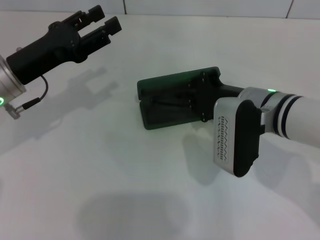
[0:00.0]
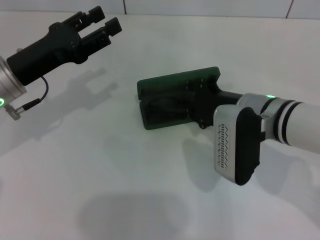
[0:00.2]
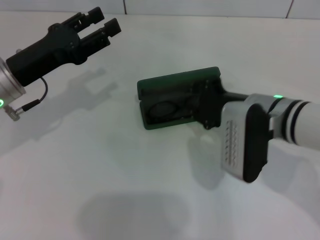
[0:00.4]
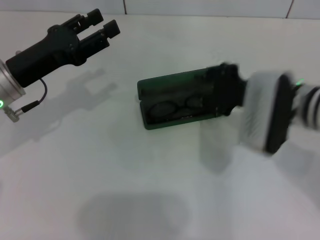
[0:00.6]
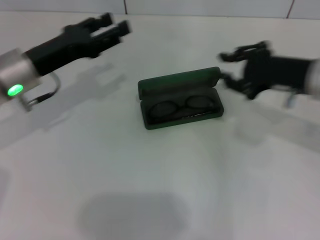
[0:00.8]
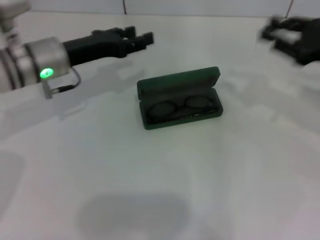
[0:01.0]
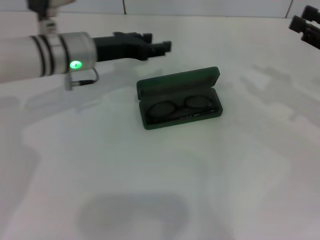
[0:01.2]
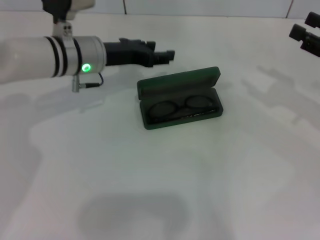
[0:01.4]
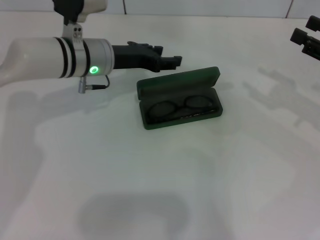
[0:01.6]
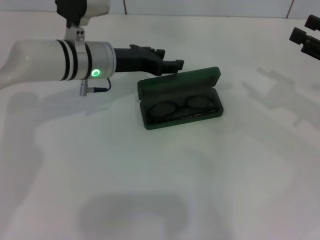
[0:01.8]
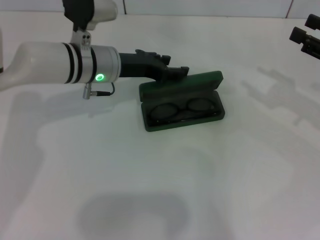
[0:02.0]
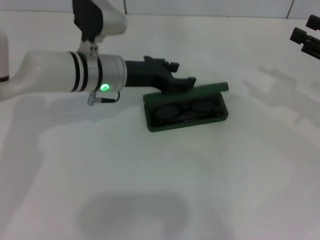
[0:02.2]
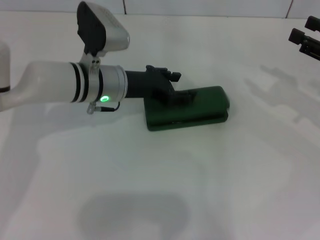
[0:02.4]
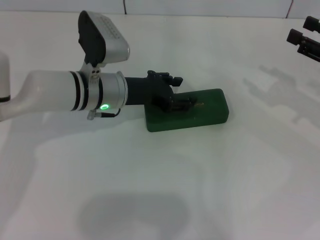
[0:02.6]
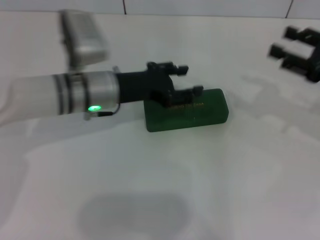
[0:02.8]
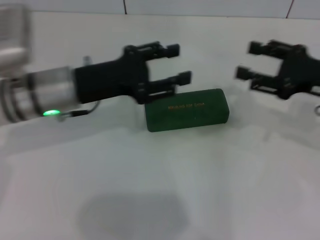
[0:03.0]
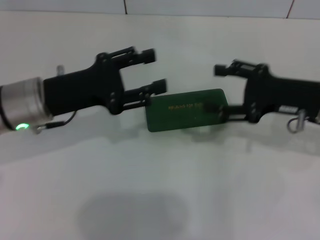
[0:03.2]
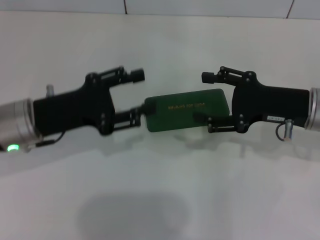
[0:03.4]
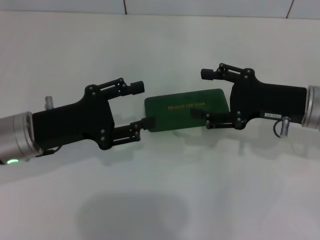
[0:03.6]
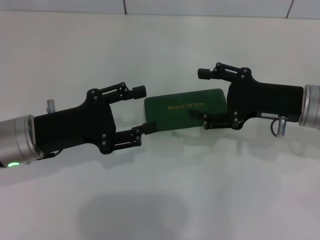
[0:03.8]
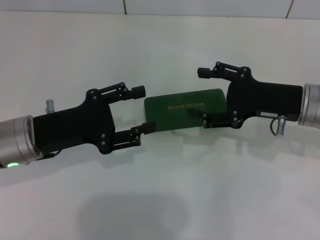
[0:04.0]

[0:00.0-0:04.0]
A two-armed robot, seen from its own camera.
Step, 0:00.4 to 0:02.4: Close the glasses case with your left hand.
0:00.0 to 0:01.4: The right gripper moves to the right, about 20 cm, and opens up. Meanwhile the left gripper is displaced to the right and forward by about 15 cm.
0:01.4 to 0:02.6: The left gripper moves roughly 5 cm.
0:02.6 to 0:04.0: The left gripper is displaced backward and to the left by roughly 15 cm. The right gripper is displaced to the left by about 10 cm.

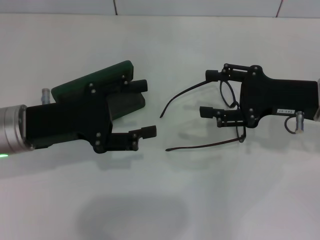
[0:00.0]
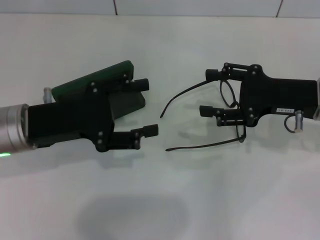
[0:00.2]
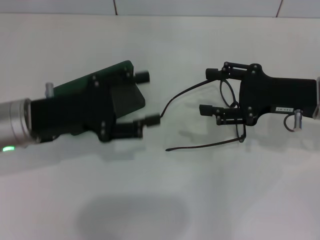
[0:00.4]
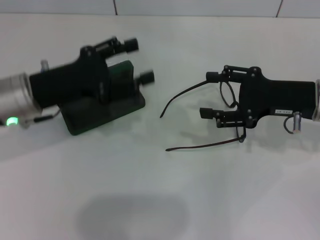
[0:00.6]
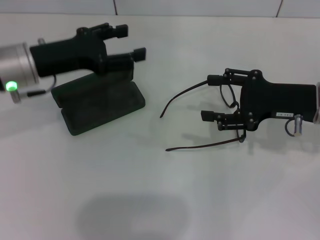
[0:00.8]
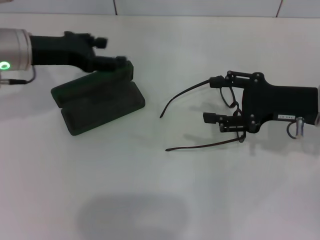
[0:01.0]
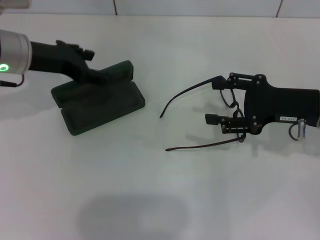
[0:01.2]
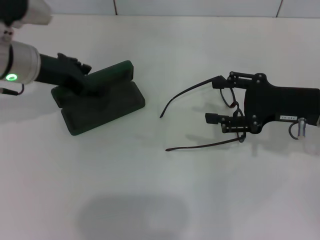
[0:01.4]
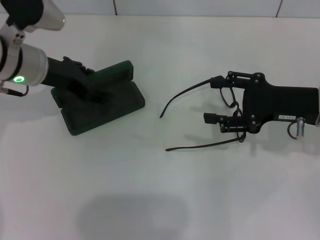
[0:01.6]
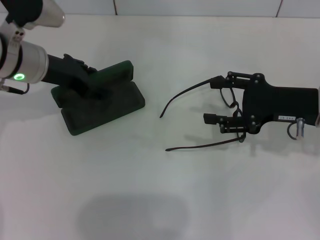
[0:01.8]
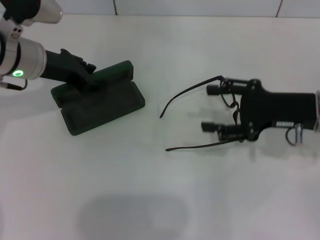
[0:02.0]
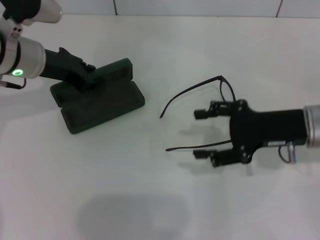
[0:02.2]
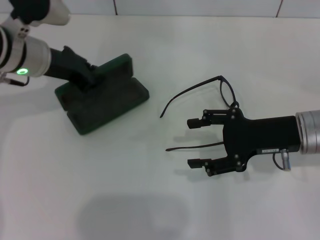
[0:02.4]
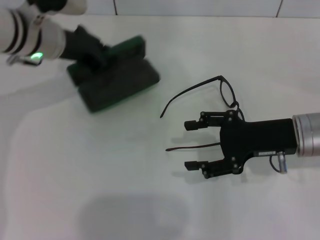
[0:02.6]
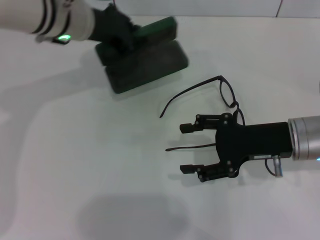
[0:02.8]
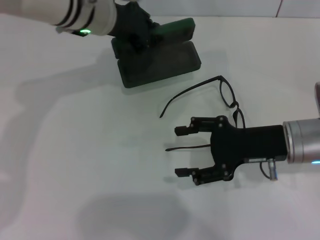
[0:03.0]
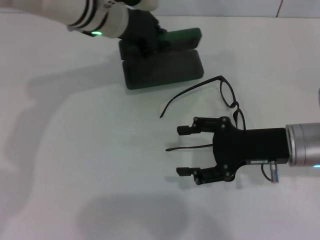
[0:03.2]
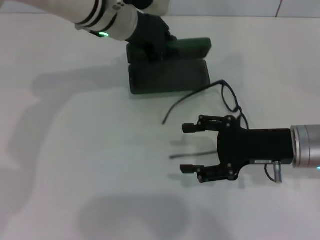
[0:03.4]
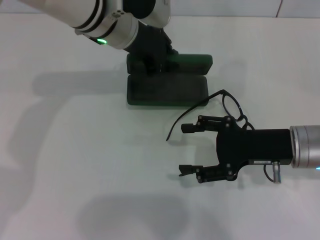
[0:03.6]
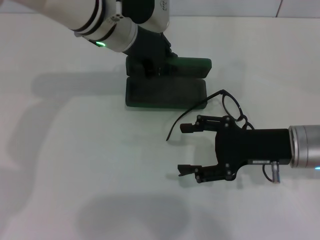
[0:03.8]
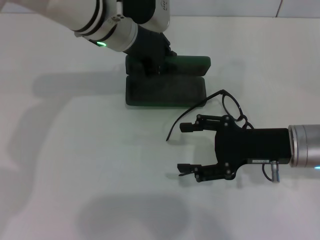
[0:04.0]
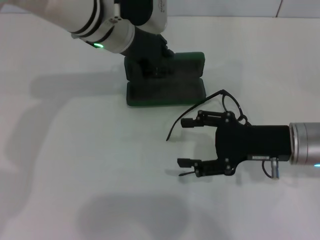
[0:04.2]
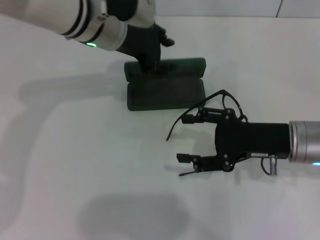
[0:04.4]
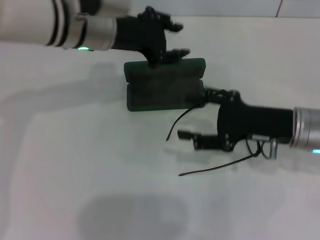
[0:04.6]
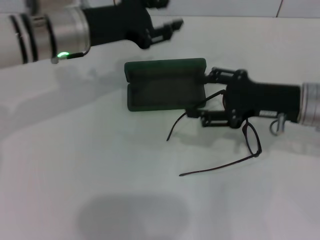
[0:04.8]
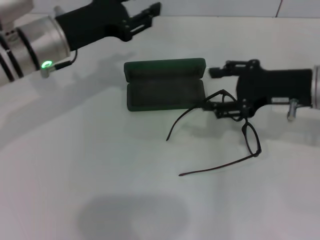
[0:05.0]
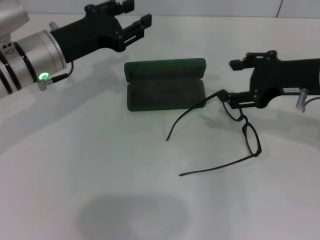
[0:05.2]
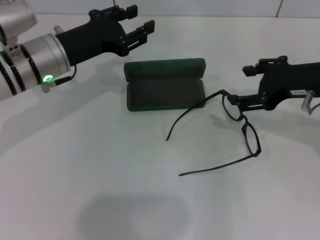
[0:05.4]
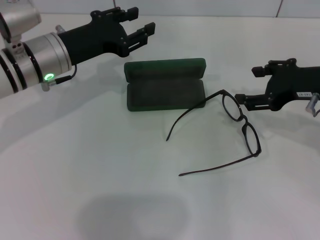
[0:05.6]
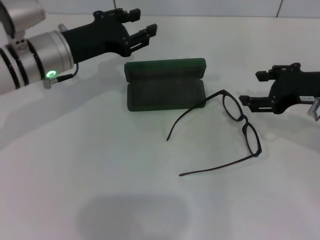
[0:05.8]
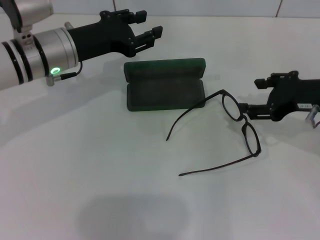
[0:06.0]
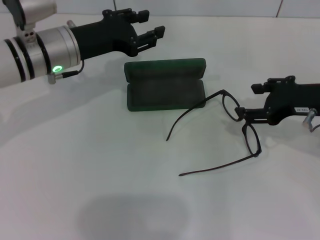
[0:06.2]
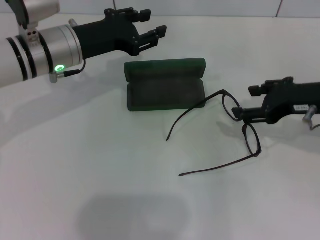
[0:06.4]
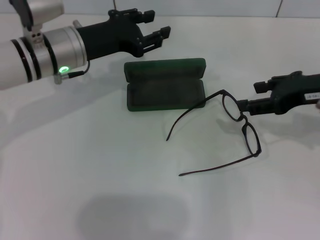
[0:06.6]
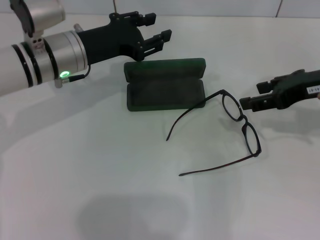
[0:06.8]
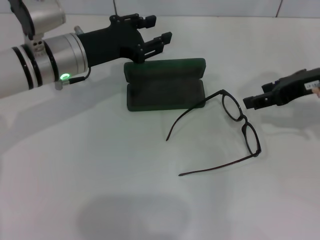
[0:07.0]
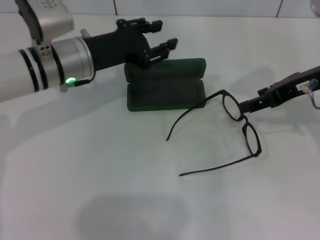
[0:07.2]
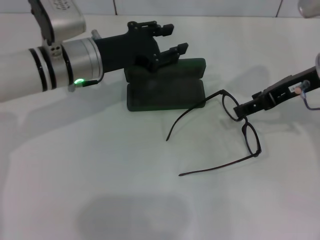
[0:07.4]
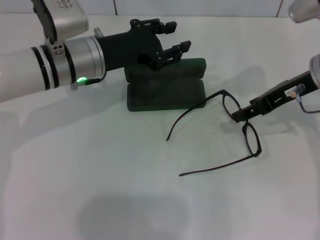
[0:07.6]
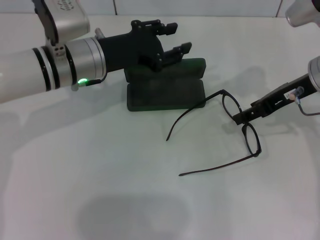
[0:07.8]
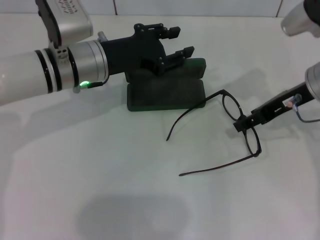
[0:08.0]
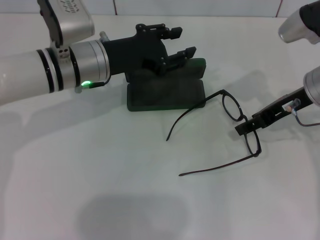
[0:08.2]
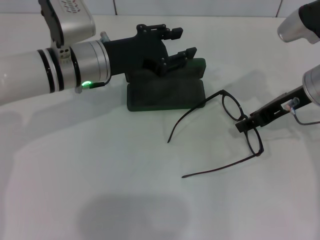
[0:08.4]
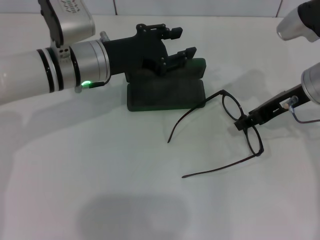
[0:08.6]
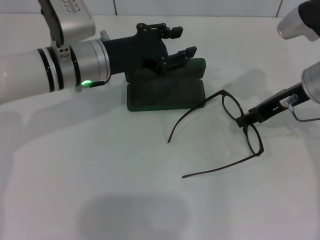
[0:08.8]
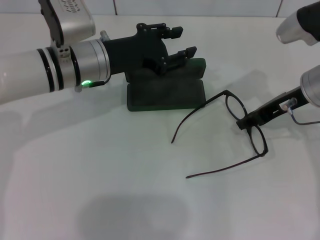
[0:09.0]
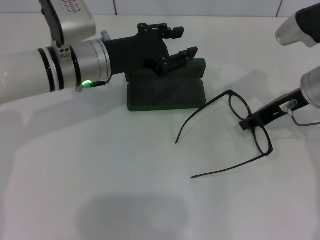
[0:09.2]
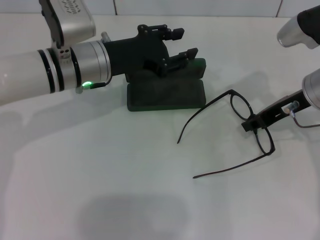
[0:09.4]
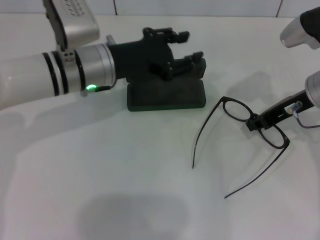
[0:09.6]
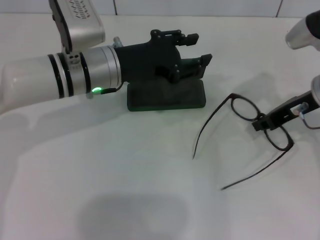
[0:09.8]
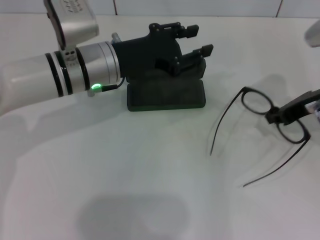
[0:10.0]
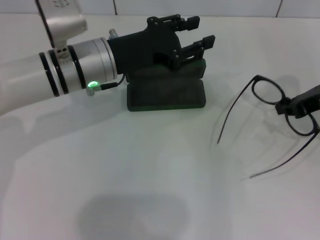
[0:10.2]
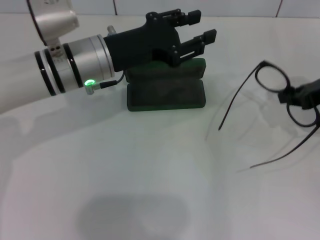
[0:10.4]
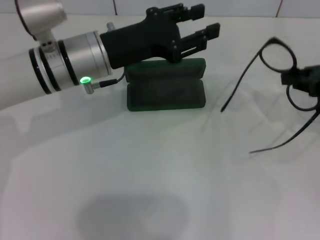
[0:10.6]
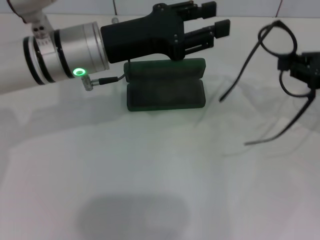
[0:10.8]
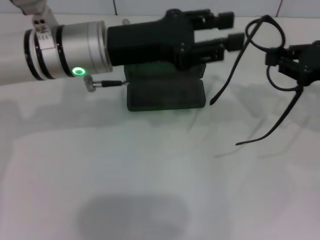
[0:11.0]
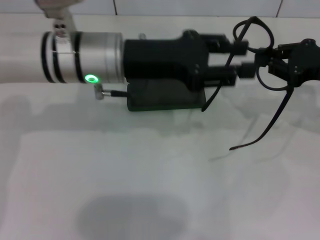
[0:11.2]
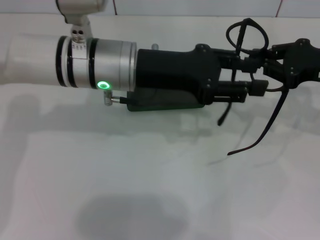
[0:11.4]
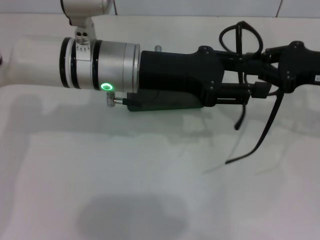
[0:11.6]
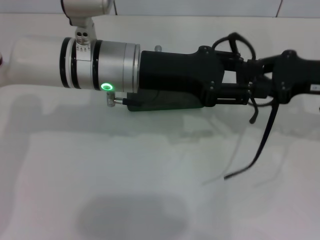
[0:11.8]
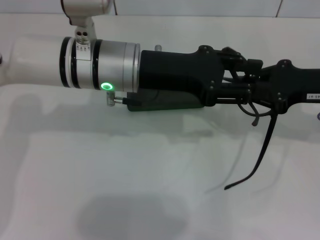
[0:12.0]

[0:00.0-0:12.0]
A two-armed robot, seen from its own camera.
Step, 0:00.0 to 0:01.6: Grab the glasses case with your left hand.
Step, 0:01.8 to 0:04.2: Place the glasses case in the center of the table with your left hand.
Step, 0:04.4 to 0:09.4: Grab the eyeglass frame with your right hand.
0:00.0 to 0:01.6: The left gripper is displaced forward by about 10 cm.
0:01.6 to 0:03.0: The right gripper moves about 5 cm. Meanwhile the left gripper heads to the right and forward, covering about 10 cm, and closes.
0:03.0 to 0:04.4: There are only small adjustments of the grippers.
0:04.4 to 0:06.0: The left gripper shifts roughly 10 cm to the left. Meanwhile the right gripper goes roughly 5 cm upward.
0:06.0 to 0:07.6: The right gripper shifts by roughly 5 cm.
0:07.6 to 0:09.0: There are only small adjustments of the grippers.
0:09.0 to 0:10.4: The right gripper moves to the right, about 10 cm, and closes its fingers.

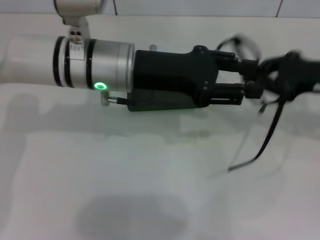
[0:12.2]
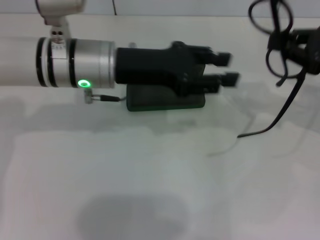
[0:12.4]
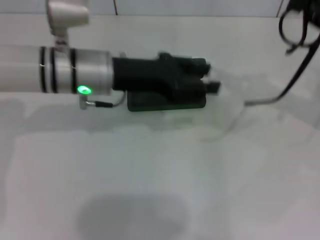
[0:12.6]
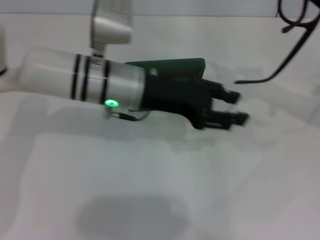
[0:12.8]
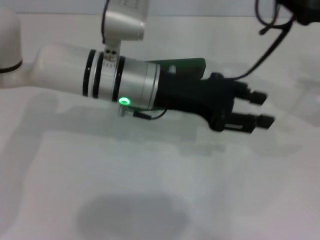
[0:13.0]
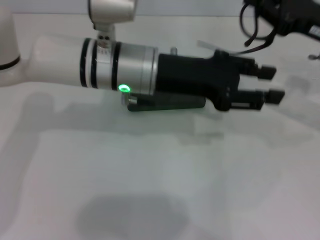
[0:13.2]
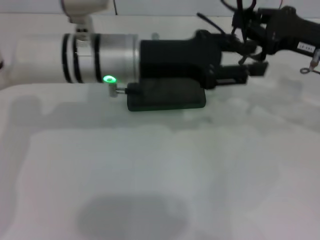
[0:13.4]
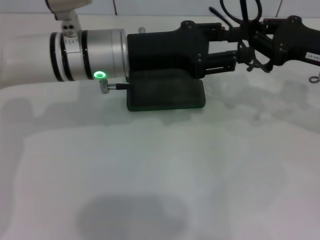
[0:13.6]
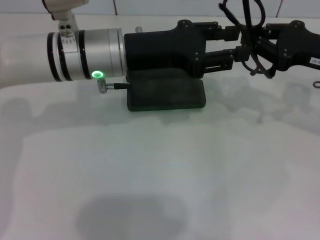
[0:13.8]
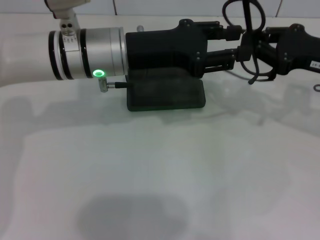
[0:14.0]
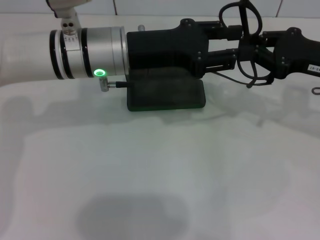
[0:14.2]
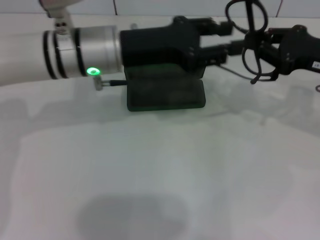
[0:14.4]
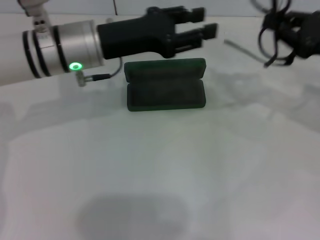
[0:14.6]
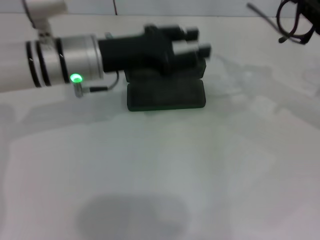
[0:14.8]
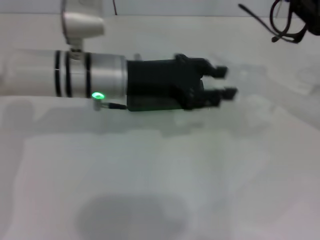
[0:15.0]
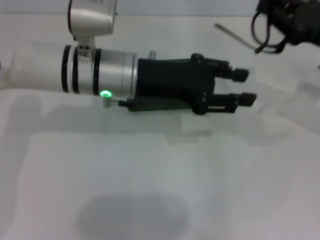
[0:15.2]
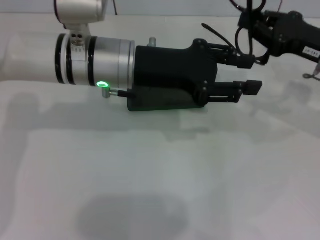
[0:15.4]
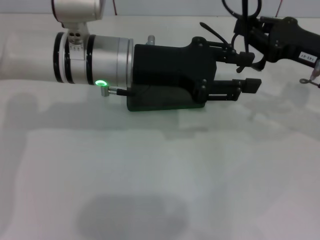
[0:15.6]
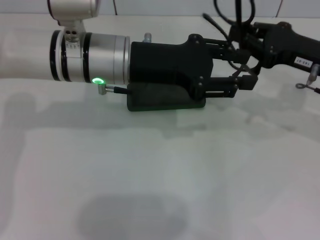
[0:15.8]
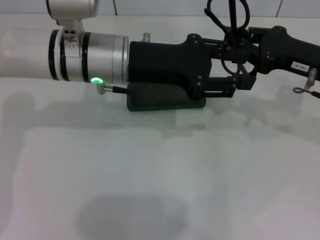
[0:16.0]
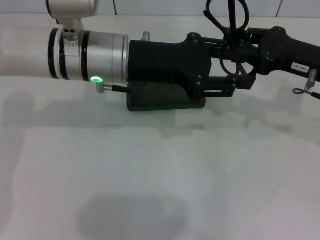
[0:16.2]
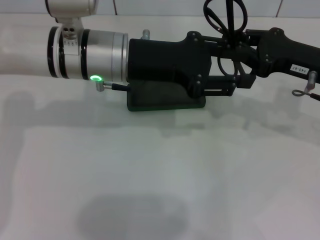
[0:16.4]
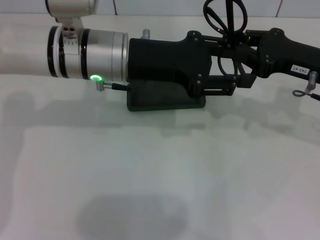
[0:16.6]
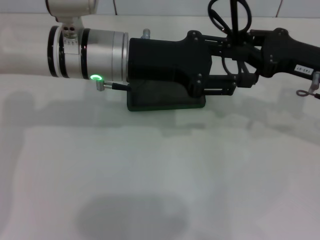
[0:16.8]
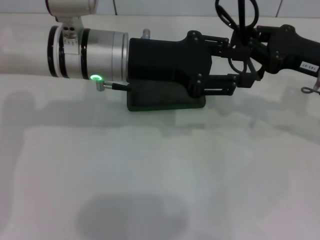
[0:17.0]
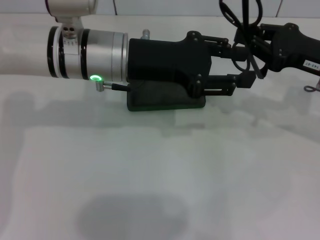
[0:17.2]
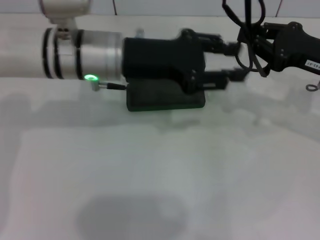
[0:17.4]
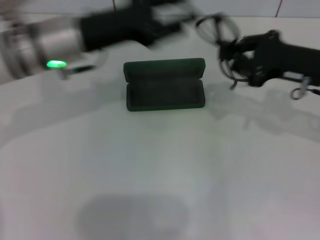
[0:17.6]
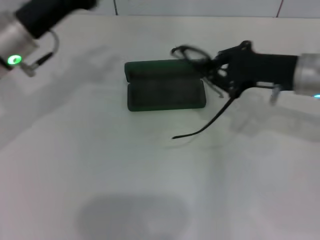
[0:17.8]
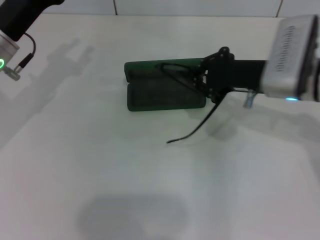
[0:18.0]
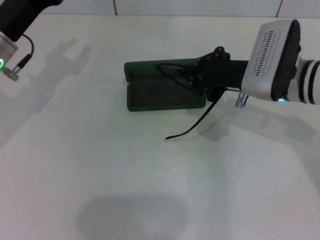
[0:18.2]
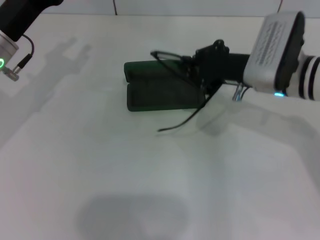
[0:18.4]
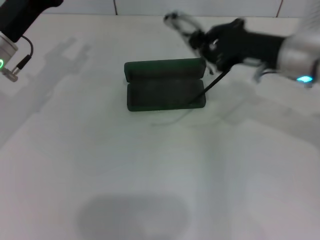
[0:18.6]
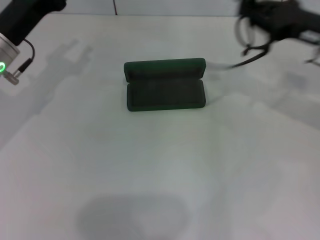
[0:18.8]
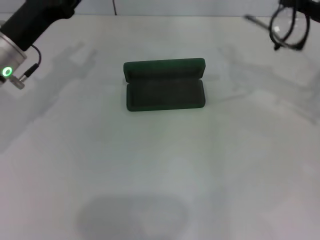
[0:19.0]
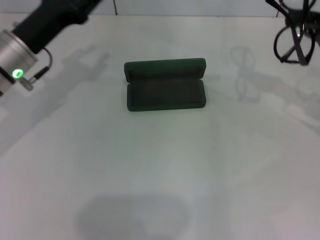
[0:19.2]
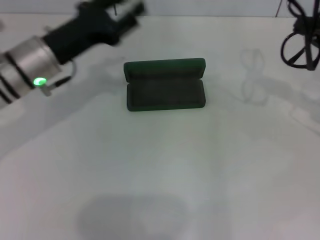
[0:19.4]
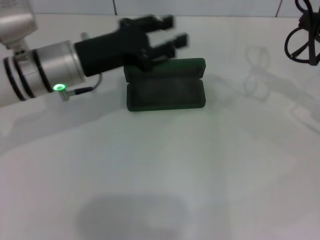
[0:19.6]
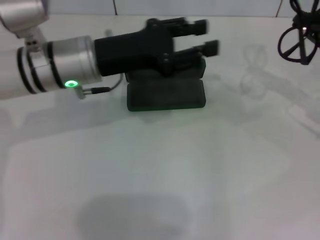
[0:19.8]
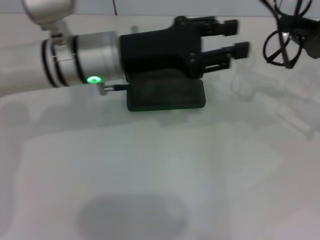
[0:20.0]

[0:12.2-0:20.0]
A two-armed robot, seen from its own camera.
0:13.8 to 0:16.8: There are only small adjustments of the grippers.
0:16.8 to 0:18.4: The two grippers go some 10 cm to the left.
0:18.4 to 0:20.0: The grippers both shift to the right by about 15 cm.
